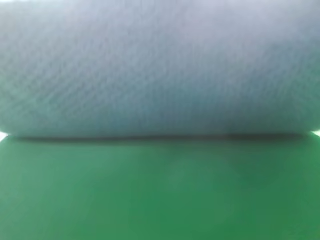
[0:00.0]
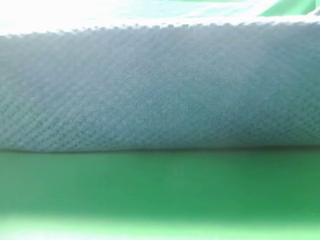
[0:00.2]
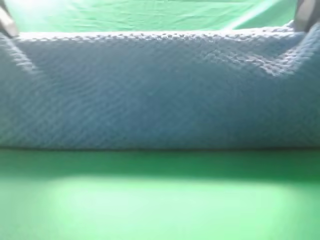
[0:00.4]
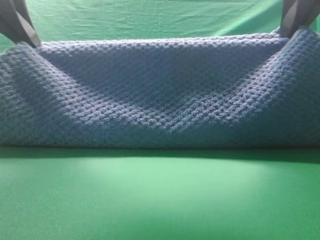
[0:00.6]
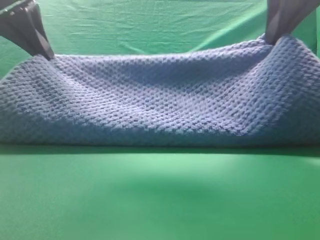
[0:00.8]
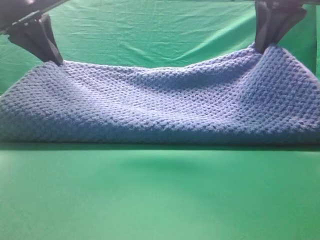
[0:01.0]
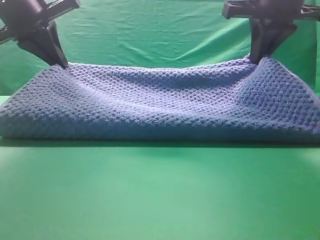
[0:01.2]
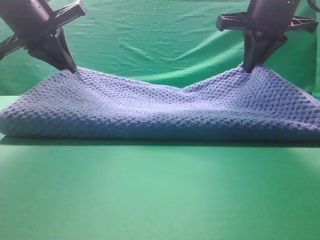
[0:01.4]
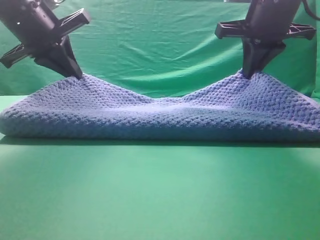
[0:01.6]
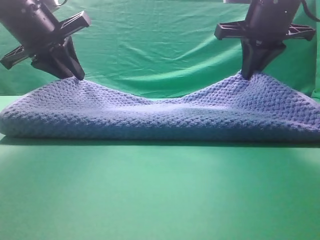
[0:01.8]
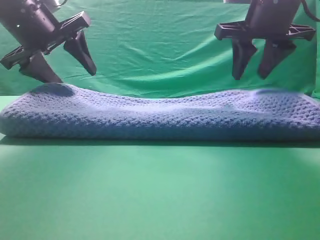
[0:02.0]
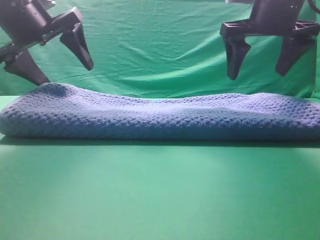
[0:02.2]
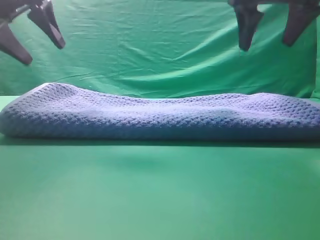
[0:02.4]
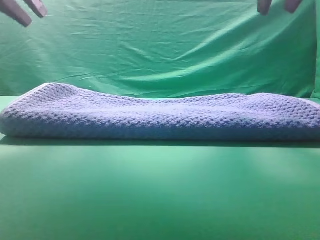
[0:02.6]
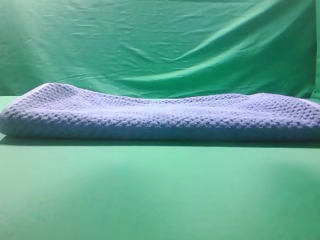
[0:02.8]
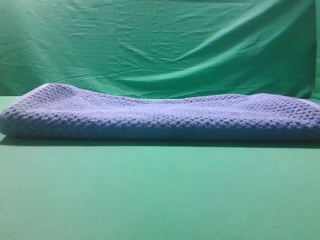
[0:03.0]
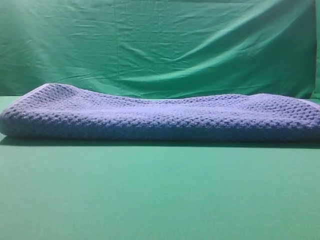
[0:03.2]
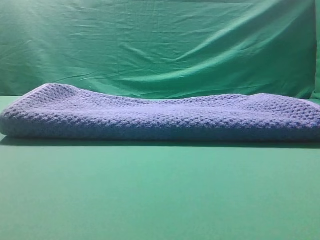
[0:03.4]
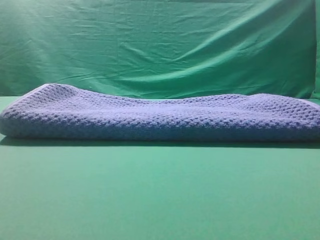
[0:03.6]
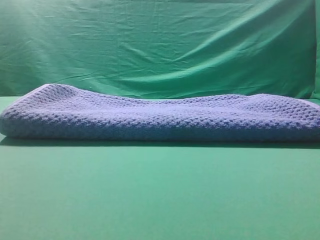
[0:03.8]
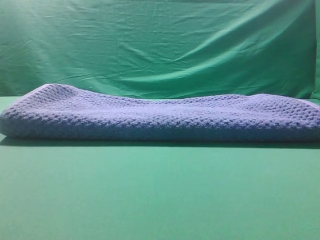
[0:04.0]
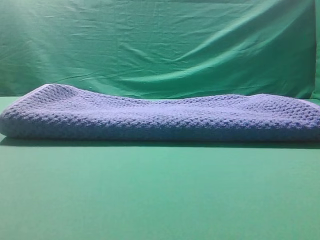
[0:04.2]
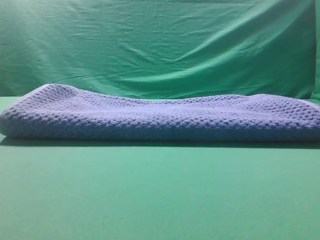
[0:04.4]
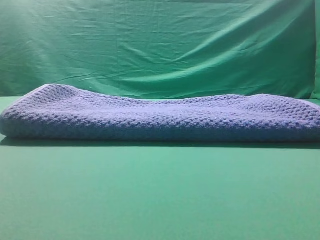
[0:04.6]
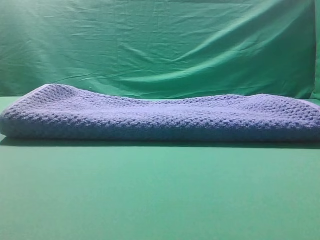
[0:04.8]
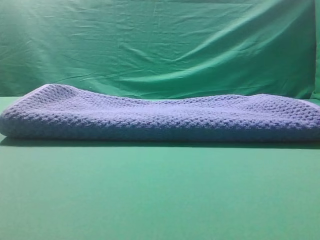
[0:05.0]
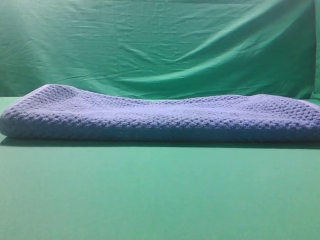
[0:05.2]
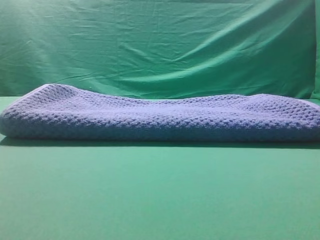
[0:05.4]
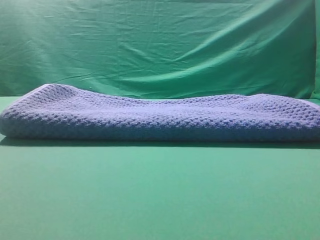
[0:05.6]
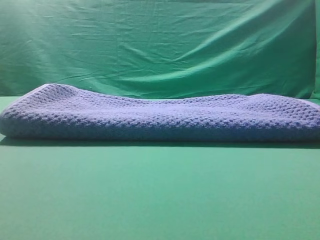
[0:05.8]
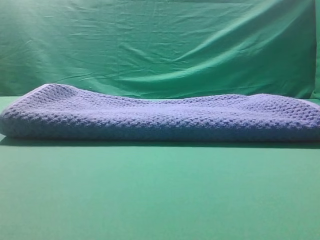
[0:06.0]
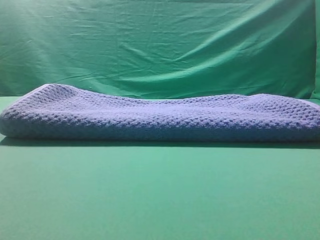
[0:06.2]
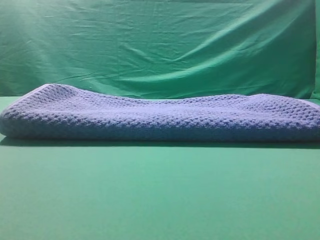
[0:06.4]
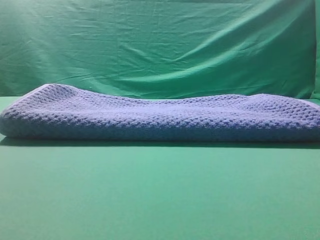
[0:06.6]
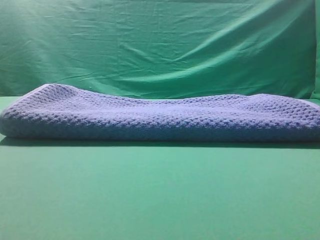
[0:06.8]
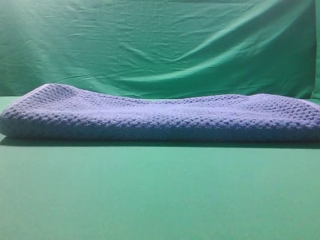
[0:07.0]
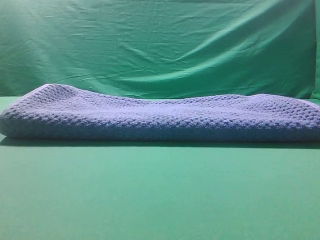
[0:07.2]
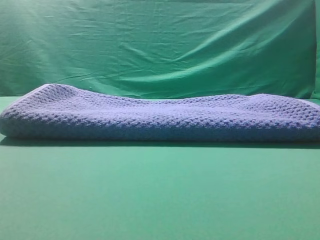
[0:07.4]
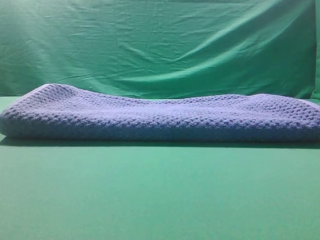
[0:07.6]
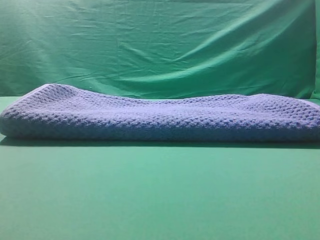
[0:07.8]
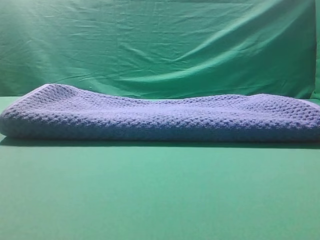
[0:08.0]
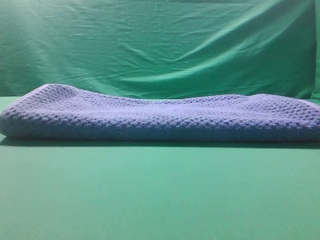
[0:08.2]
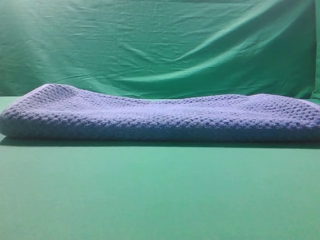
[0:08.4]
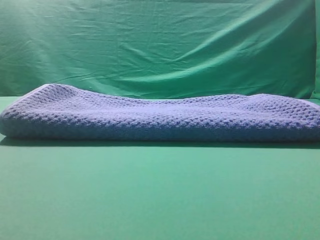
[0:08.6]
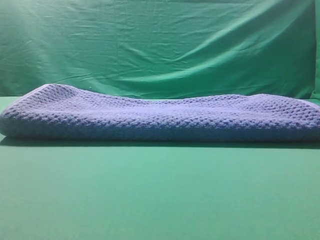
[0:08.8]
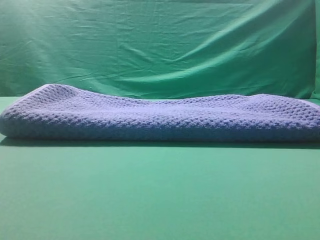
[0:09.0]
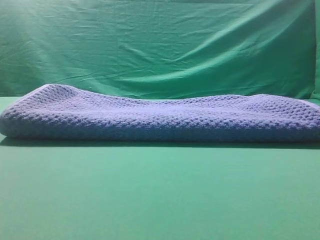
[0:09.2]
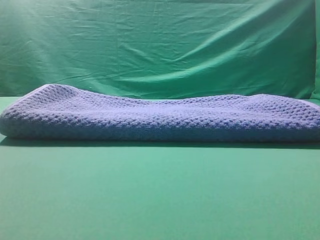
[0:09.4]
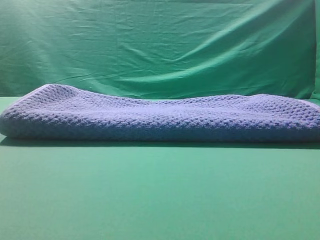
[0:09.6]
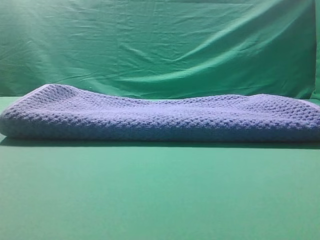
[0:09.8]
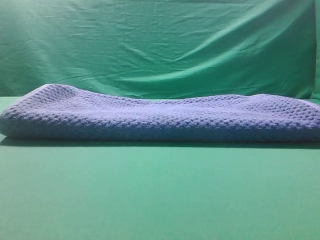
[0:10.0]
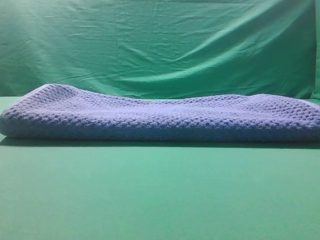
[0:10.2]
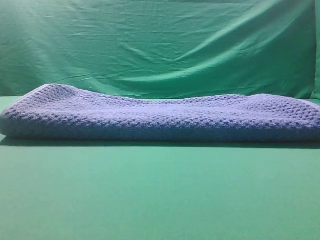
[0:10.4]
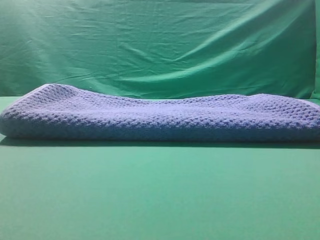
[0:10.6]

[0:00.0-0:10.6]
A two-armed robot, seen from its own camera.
Task of the whole recording: fold the towel on the table twice.
Step, 0:00.0 to 0:02.2: Fold the towel twice on the table.
